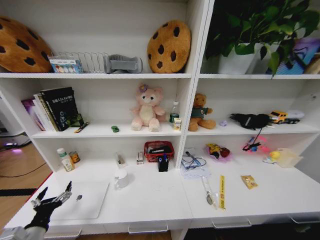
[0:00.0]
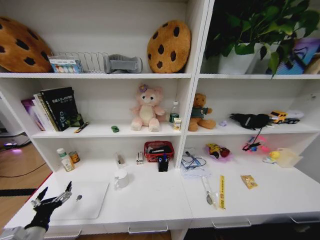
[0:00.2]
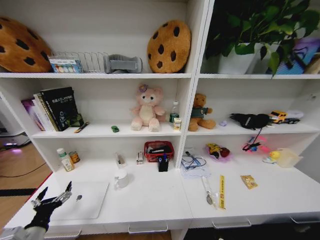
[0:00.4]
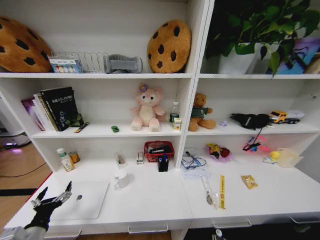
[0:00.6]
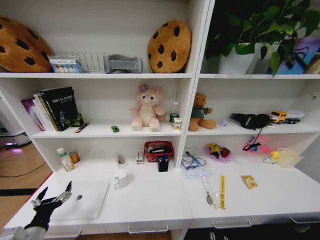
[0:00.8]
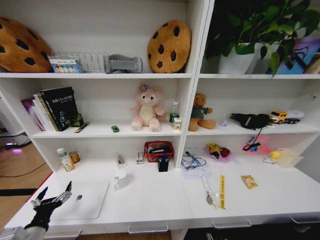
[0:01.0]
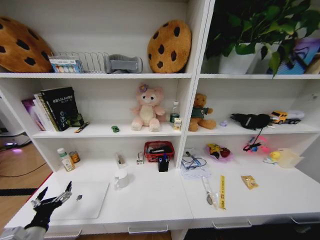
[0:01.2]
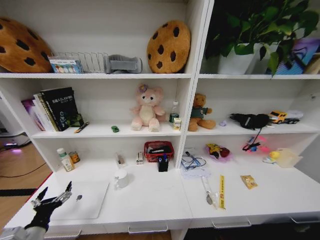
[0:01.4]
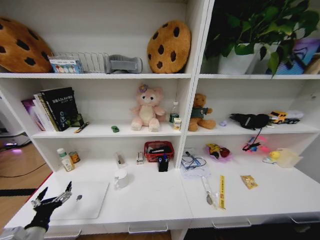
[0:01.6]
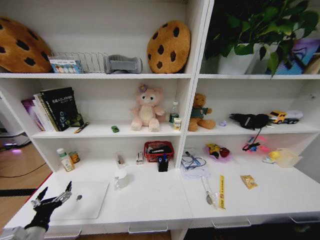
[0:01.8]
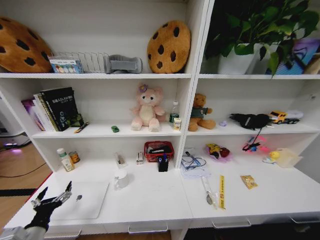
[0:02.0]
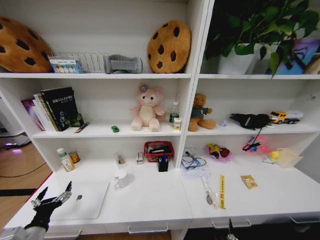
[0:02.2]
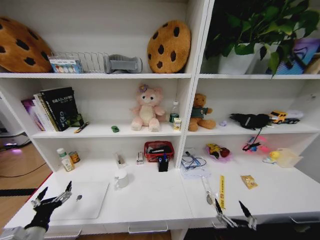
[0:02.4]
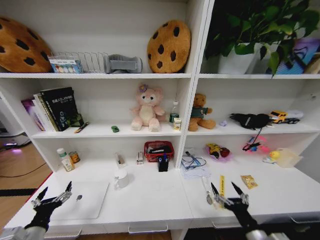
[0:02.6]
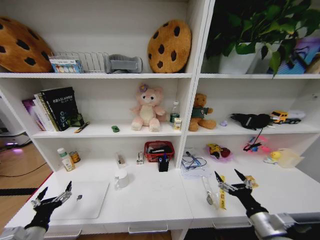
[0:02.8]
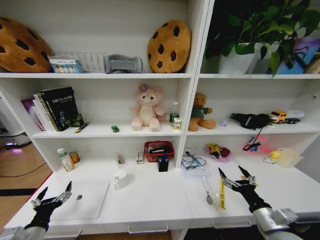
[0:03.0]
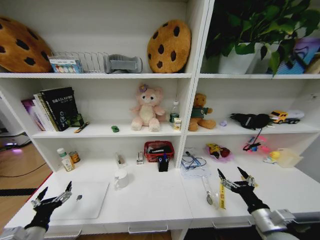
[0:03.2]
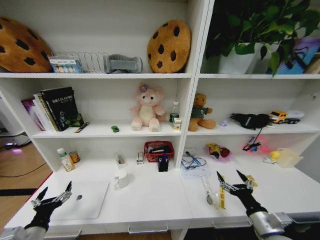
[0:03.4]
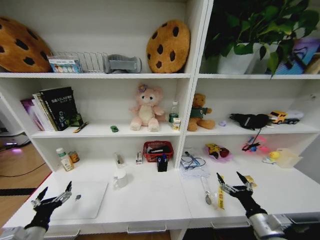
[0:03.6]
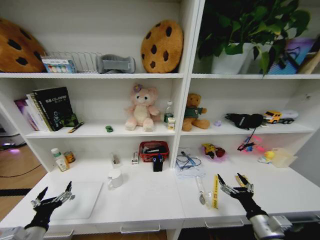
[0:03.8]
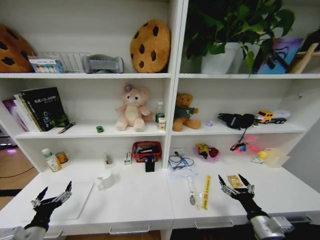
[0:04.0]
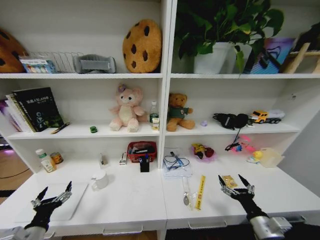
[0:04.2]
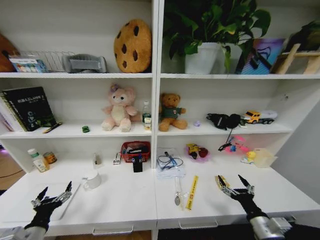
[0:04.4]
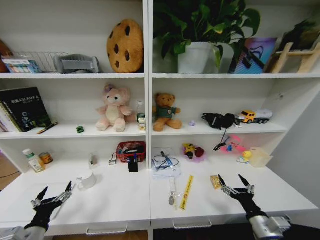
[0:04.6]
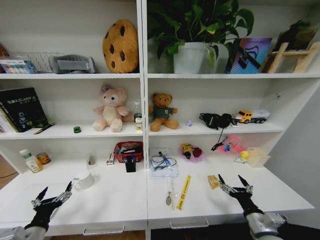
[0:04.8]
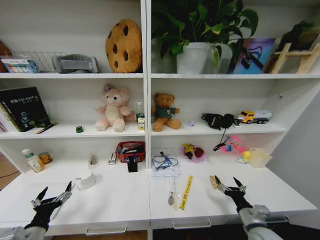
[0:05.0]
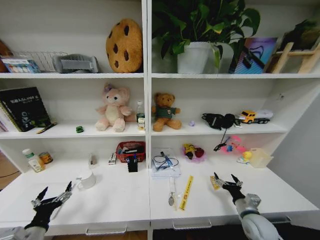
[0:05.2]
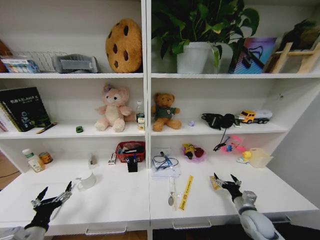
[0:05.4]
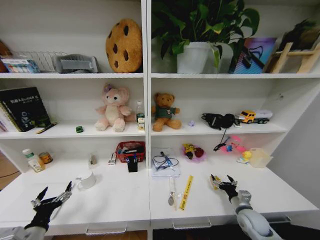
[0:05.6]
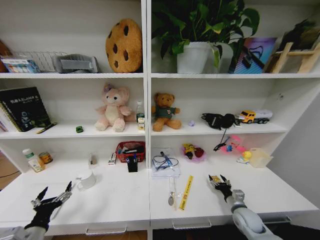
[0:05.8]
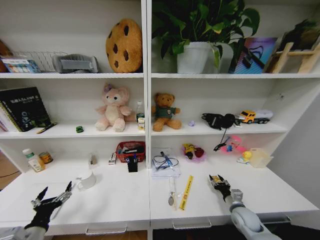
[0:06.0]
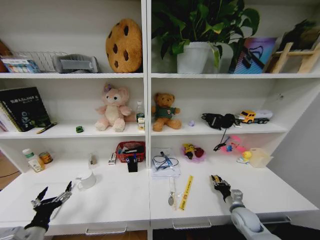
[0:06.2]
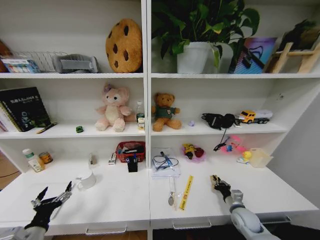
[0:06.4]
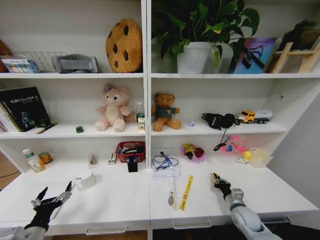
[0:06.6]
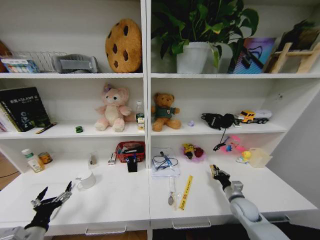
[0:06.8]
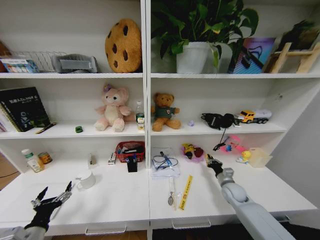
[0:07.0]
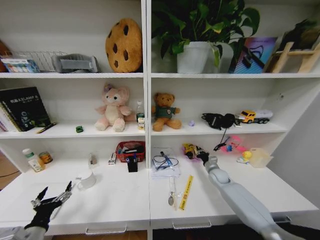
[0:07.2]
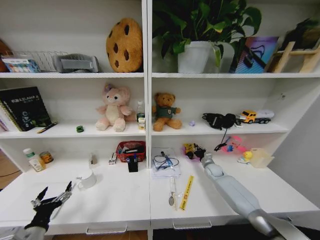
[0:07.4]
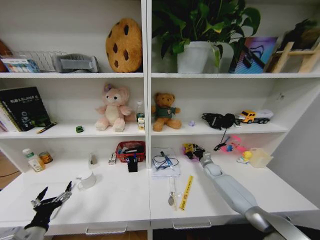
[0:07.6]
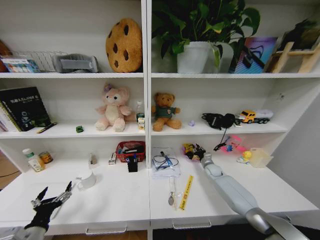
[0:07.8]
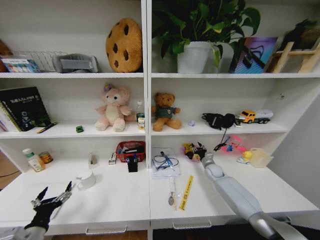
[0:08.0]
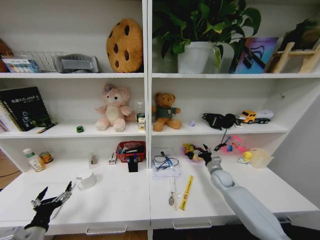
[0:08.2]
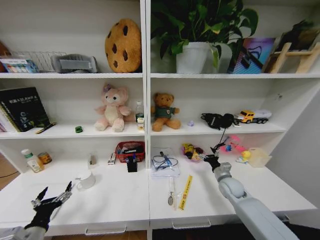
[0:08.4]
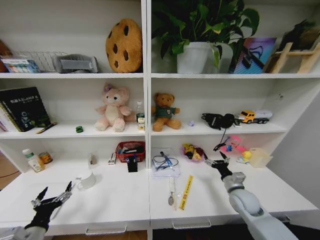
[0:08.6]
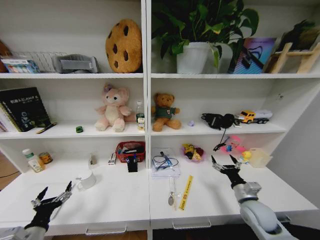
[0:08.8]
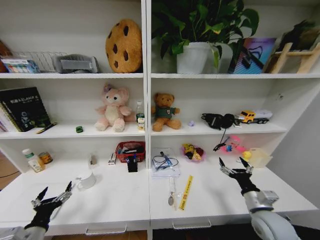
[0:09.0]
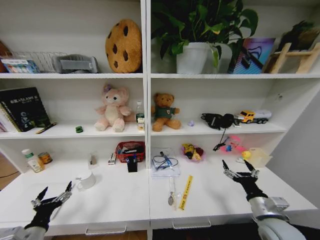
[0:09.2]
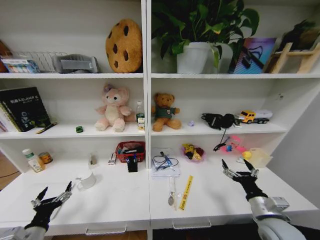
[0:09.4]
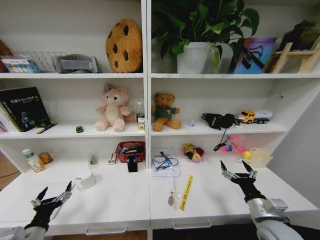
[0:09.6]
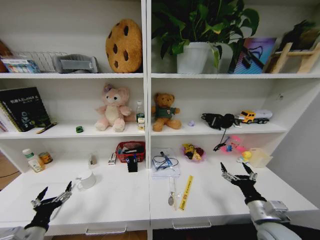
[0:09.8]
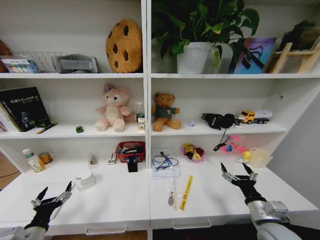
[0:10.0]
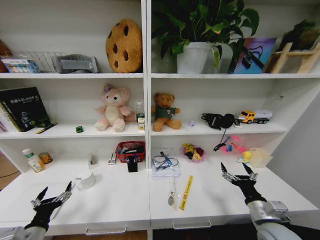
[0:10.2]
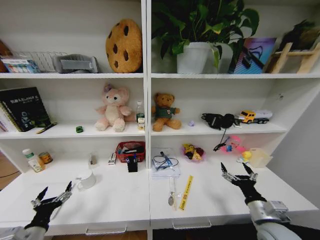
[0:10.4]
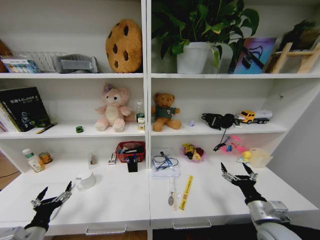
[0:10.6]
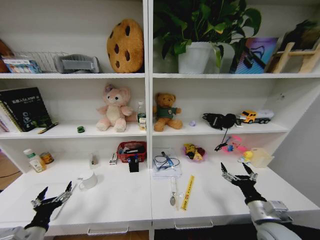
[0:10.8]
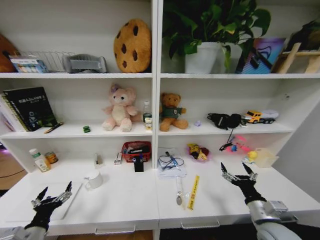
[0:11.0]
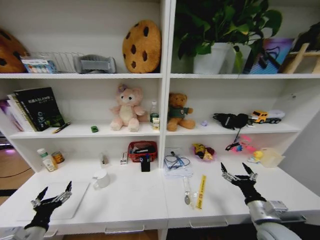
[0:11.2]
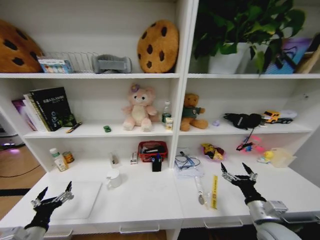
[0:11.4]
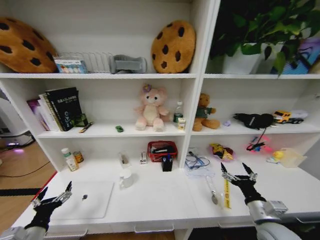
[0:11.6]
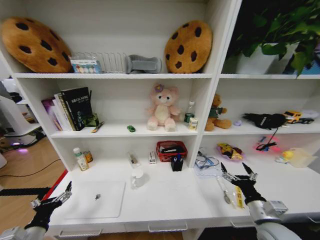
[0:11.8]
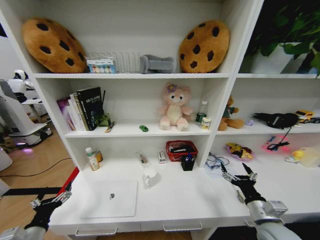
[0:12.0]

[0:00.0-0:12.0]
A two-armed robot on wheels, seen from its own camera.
Task of the whole recording: Organize the objects on the table.
0:01.6 to 0:03.0: The right gripper heads upward, forward and to the right, covering some 40 cm.
0:04.4 to 0:06.0: The right gripper goes some 15 cm forward and downward, and closes up.
0:06.0 to 0:07.6: The right gripper moves forward, some 25 cm, and closes.
0:07.6 to 0:09.0: The right gripper is displaced backward by approximately 30 cm, and opens up.
0:09.0 to 0:10.4: The right gripper is displaced backward by about 5 cm.
